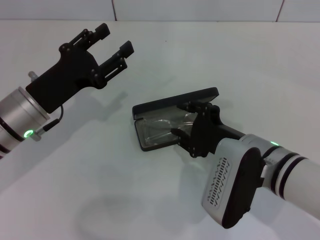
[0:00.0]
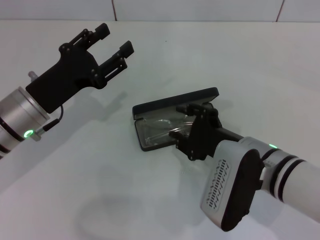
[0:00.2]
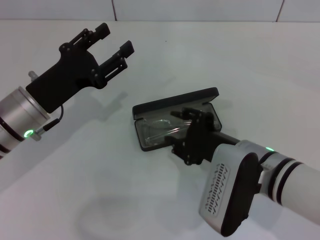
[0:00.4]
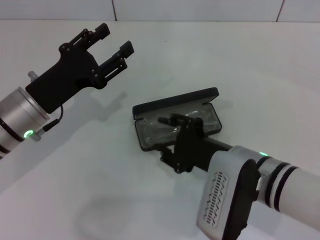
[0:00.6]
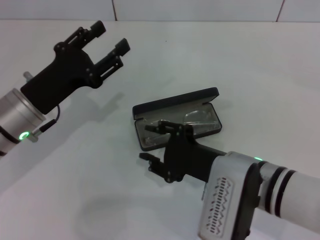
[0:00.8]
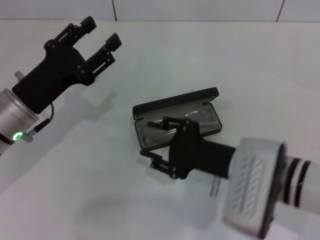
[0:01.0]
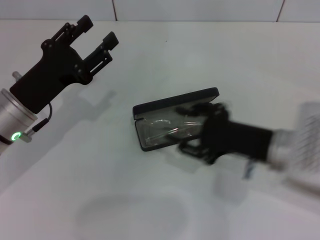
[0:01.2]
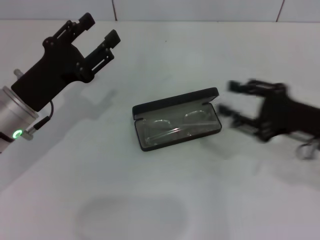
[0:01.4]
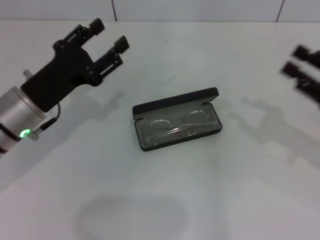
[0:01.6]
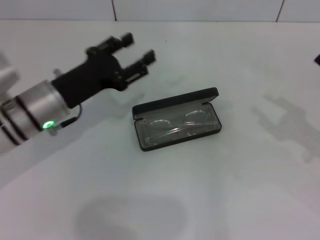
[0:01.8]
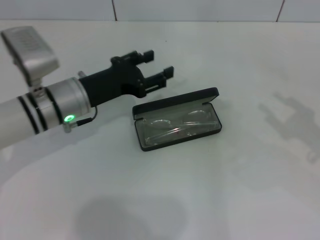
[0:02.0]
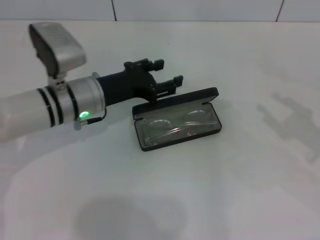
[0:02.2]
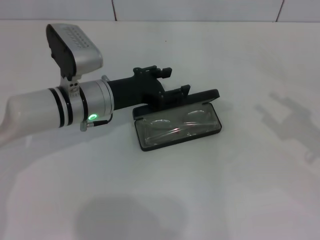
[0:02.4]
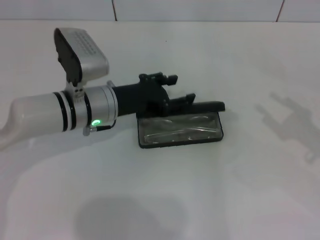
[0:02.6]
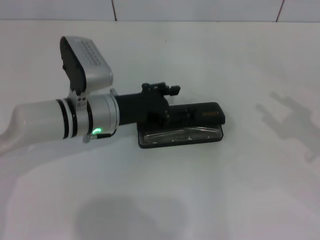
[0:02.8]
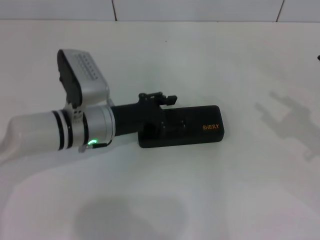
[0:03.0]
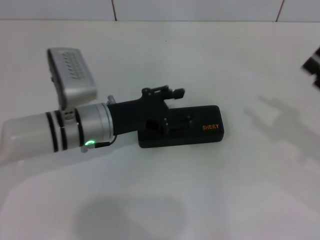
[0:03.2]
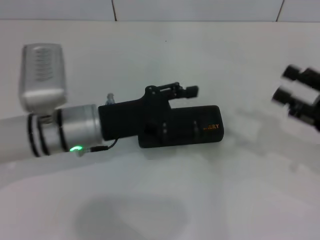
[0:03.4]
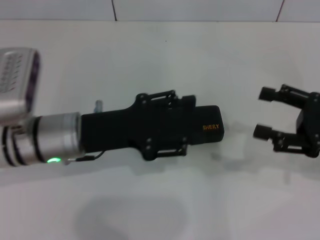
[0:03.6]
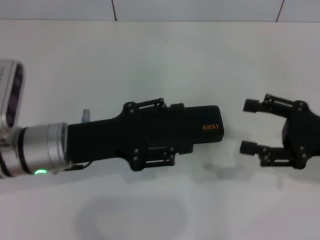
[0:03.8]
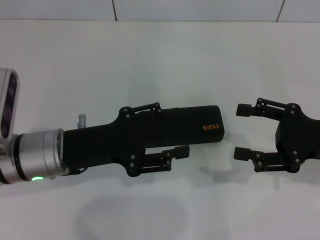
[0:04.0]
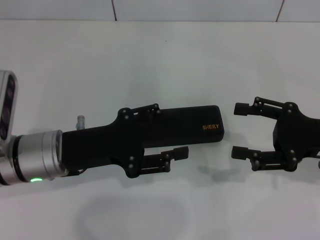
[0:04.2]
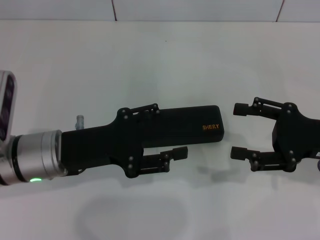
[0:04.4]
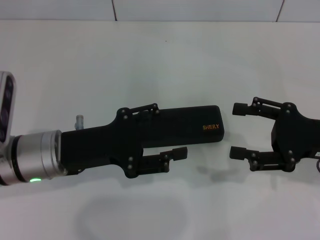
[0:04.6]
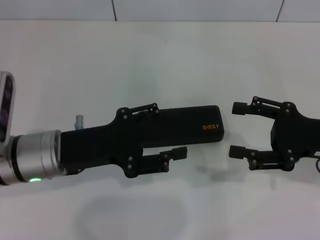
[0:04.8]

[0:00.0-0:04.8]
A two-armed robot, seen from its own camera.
Step, 0:01.0 to 0:03.0: Close the glasses case with your left hand.
0:00.0 to 0:01.6: The right gripper moves to the right, approximately 20 cm.
0:01.6 to 0:03.2: The left gripper is displaced to the right by roughly 10 cm.
0:03.2 to 0:04.8: The left gripper heads backward, covering approximately 5 cm. Meanwhile the right gripper is displaced to the left by roughly 5 cm, and opens.

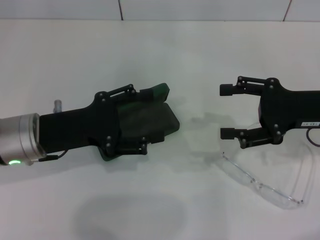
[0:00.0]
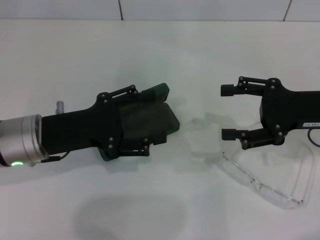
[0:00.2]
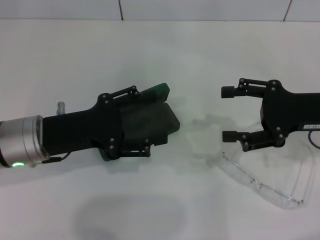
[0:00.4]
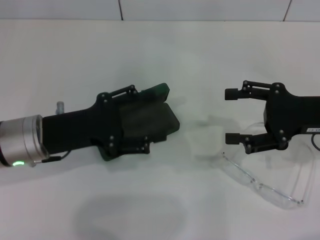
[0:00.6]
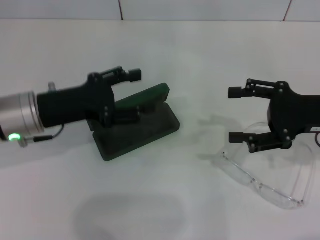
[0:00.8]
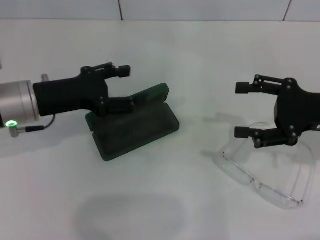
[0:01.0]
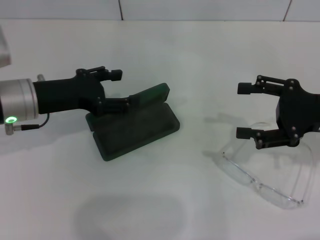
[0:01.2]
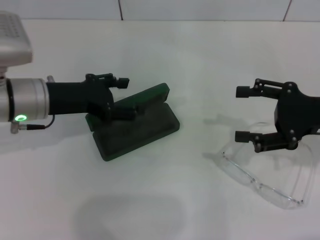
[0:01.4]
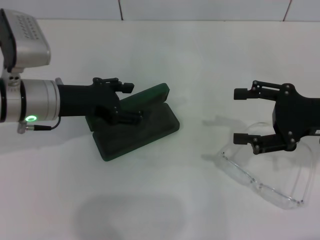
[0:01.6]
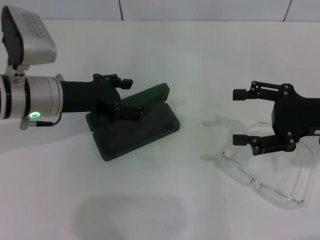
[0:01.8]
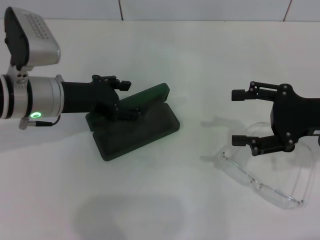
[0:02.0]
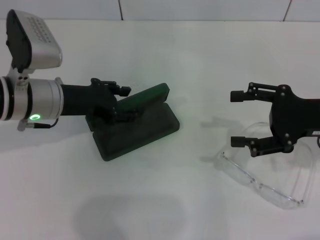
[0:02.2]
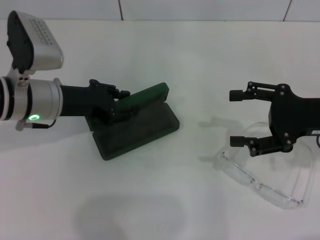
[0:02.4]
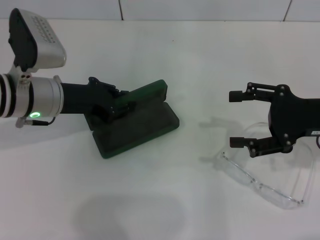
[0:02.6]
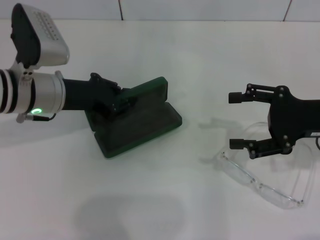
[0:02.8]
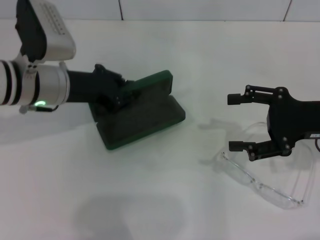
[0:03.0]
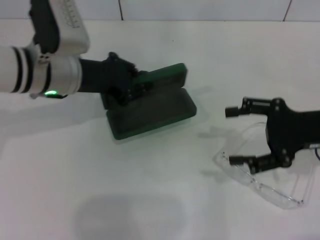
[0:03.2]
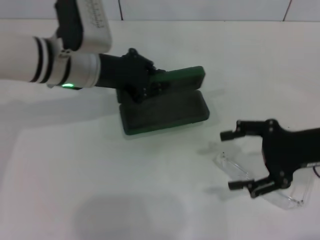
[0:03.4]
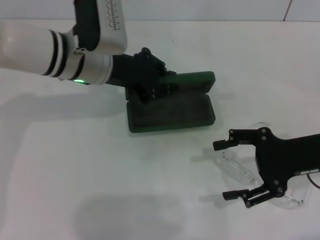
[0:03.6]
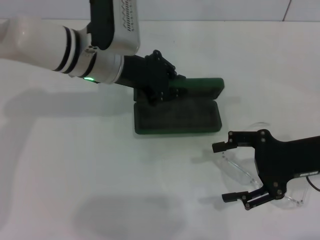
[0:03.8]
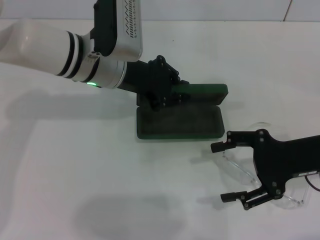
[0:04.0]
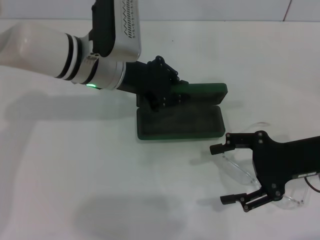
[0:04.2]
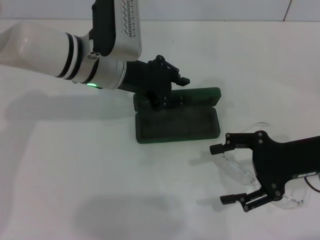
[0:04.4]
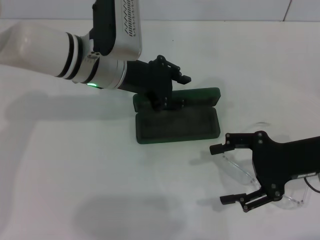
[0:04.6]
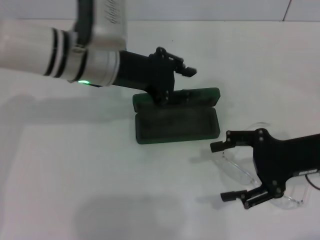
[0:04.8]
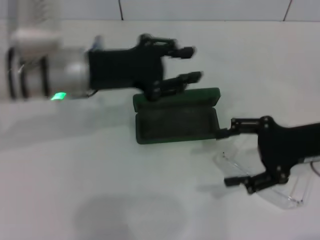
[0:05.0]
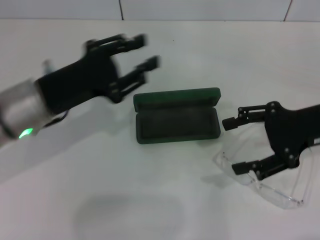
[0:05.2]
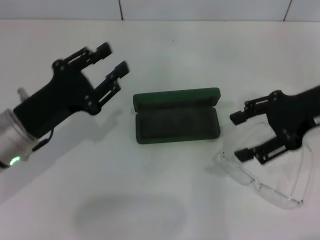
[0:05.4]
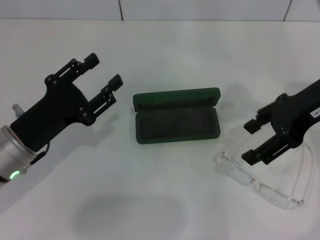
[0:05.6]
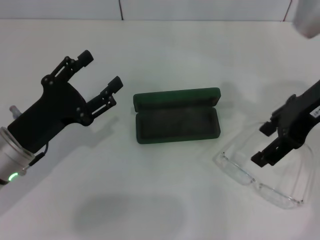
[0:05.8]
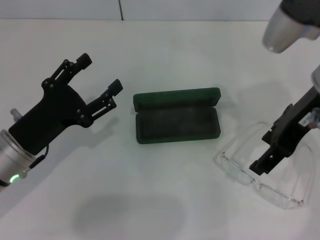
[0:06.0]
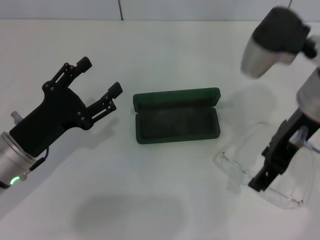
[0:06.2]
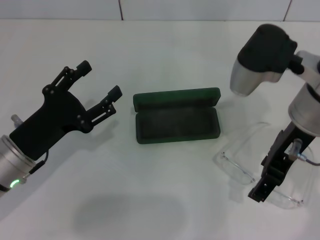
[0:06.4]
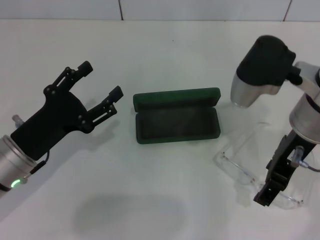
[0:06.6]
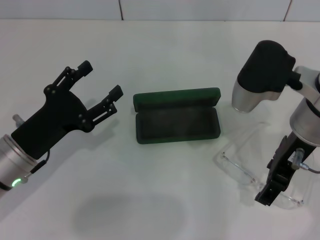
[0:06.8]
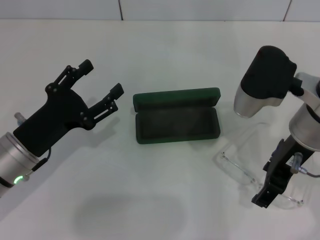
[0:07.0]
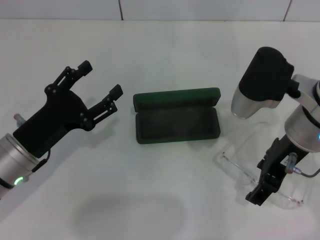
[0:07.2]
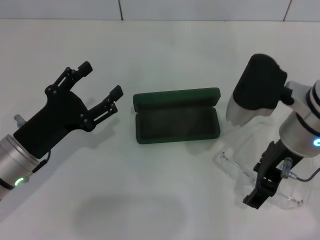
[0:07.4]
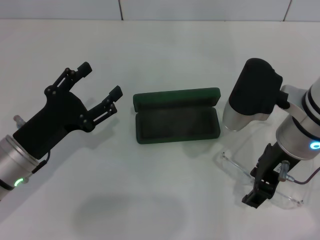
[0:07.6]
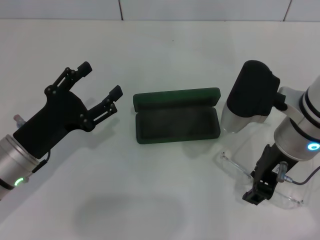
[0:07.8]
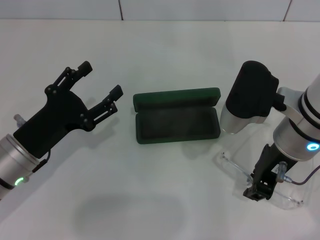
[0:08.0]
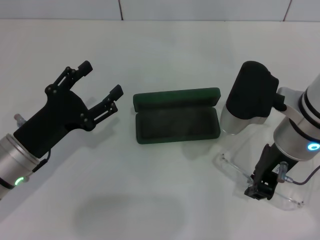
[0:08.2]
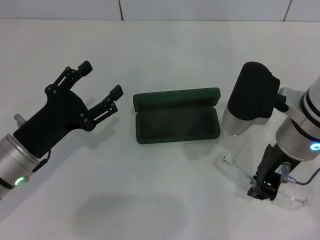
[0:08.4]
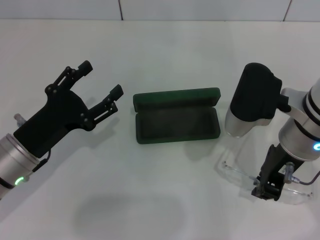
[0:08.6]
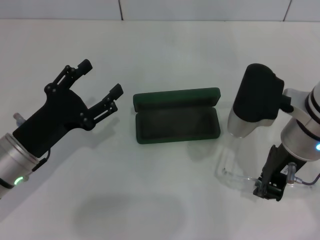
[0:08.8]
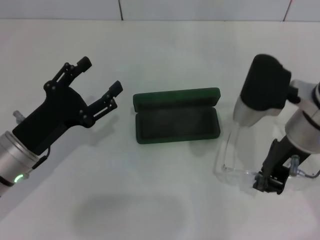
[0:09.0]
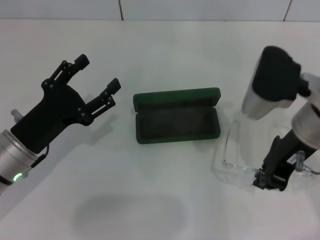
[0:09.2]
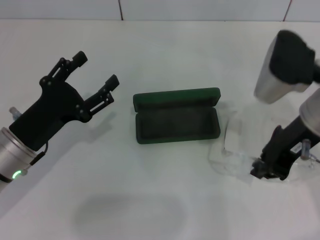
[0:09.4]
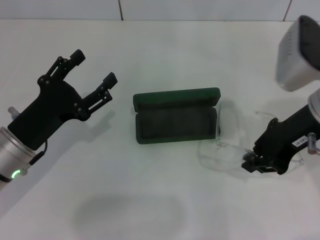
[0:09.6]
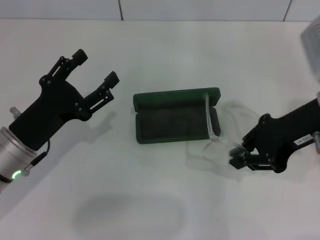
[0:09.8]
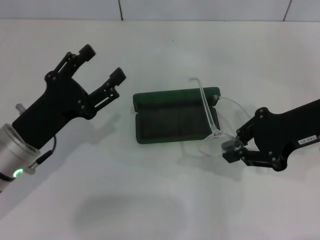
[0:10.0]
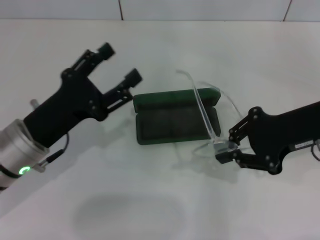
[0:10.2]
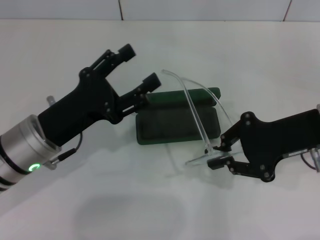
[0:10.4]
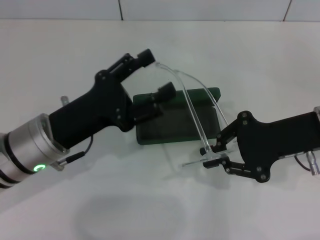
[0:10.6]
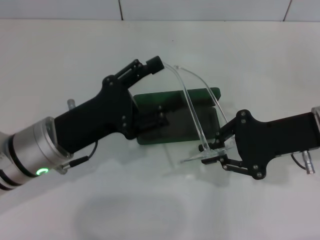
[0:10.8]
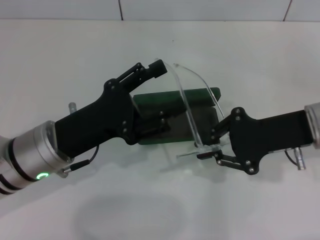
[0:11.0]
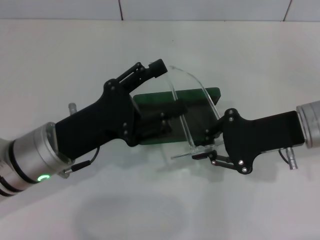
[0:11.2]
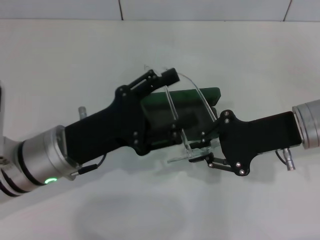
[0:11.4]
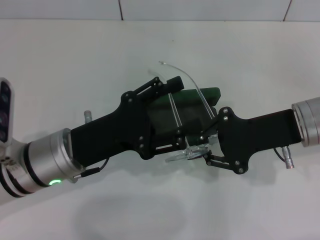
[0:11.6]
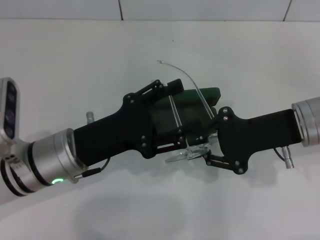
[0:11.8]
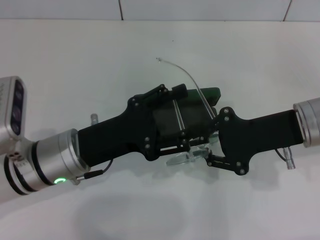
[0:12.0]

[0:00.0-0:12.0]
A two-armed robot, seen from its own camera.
Step, 0:00.0 to 0:02.4: Grab the glasses case with your left hand.
Step, 0:02.8 to 0:04.4: Place the glasses case in the center of the table with your left hand.
Step, 0:04.6 to 0:08.2: Grab the eyeglass frame with your right hand.
0:00.0 to 0:01.6: The left gripper travels forward by some 5 cm.
0:01.6 to 0:03.0: The left gripper closes.
0:03.0 to 0:04.4: The left gripper shifts approximately 10 cm to the right.
0:04.4 to 0:06.0: The right gripper travels upward and to the left by approximately 15 cm; the left gripper moves backward, to the left and downward, approximately 20 cm, and opens its fingers.
0:06.0 to 0:07.6: The right gripper is displaced downward by approximately 5 cm.
0:07.6 to 0:09.0: The right gripper closes its fingers.
0:09.0 to 0:10.4: The right gripper goes roughly 5 cm to the right.

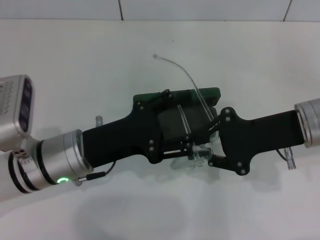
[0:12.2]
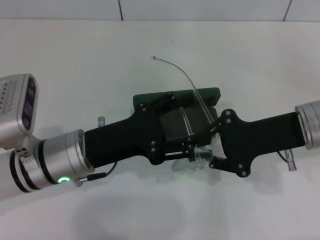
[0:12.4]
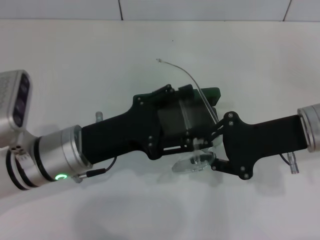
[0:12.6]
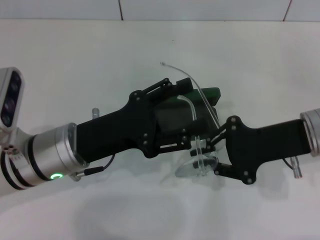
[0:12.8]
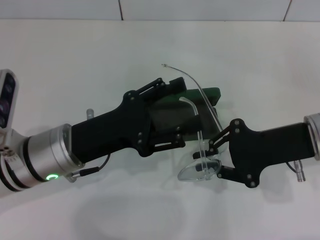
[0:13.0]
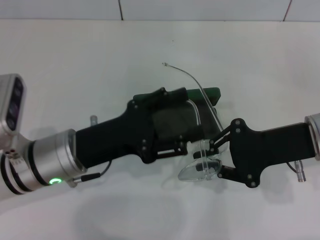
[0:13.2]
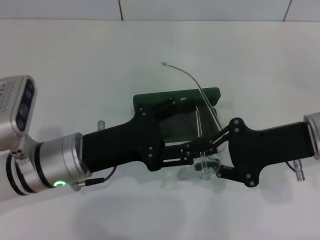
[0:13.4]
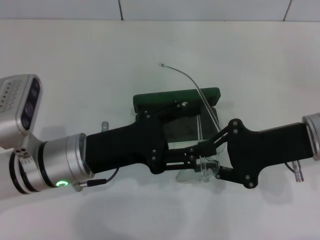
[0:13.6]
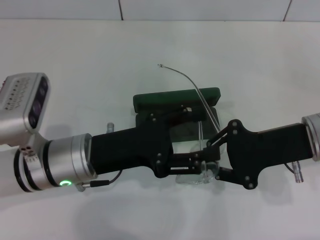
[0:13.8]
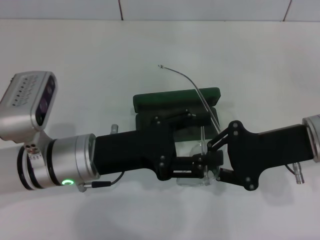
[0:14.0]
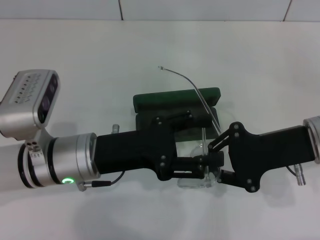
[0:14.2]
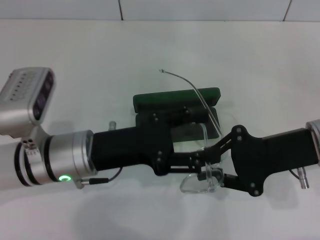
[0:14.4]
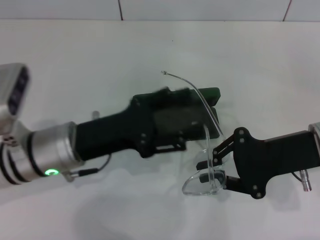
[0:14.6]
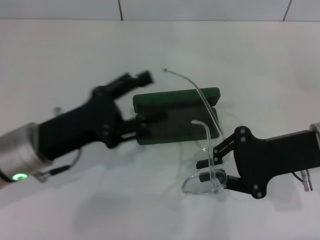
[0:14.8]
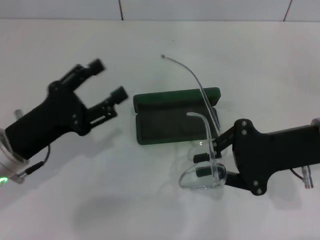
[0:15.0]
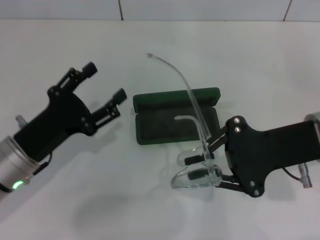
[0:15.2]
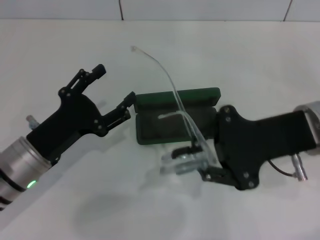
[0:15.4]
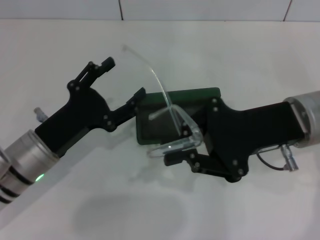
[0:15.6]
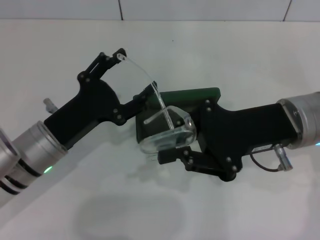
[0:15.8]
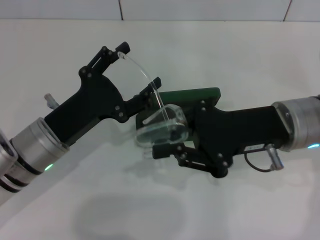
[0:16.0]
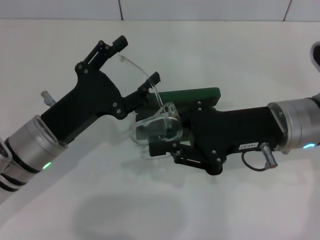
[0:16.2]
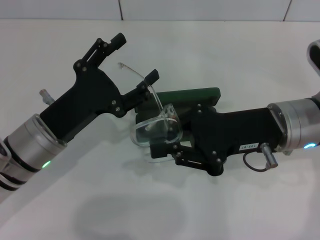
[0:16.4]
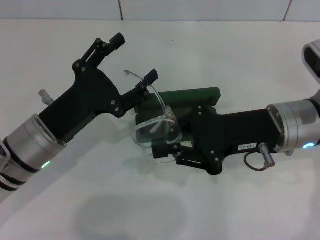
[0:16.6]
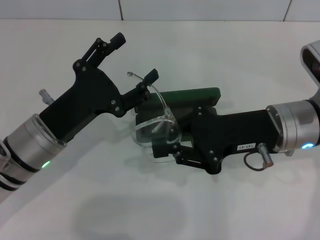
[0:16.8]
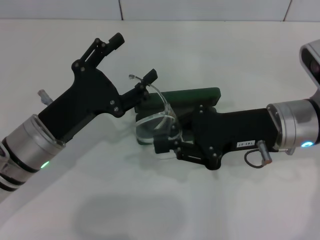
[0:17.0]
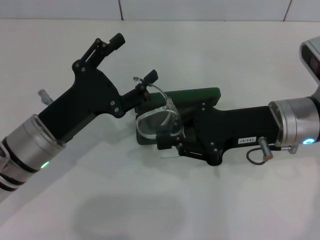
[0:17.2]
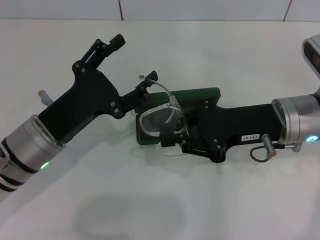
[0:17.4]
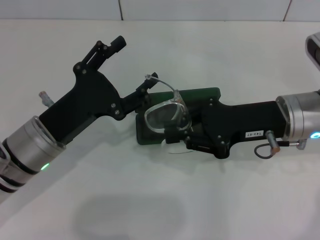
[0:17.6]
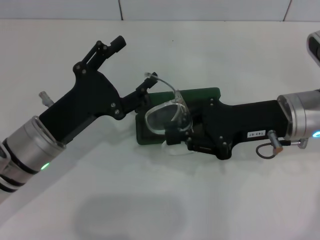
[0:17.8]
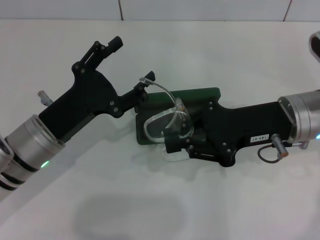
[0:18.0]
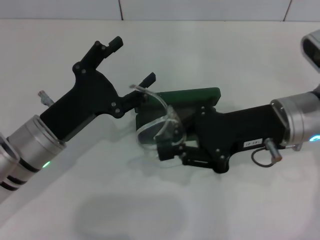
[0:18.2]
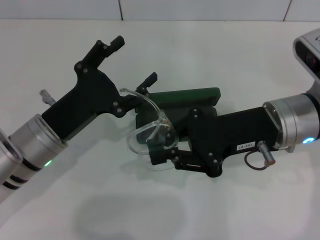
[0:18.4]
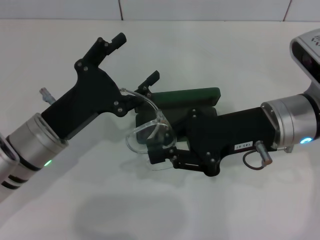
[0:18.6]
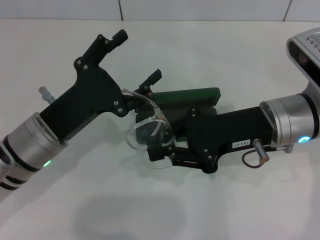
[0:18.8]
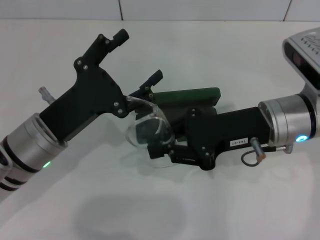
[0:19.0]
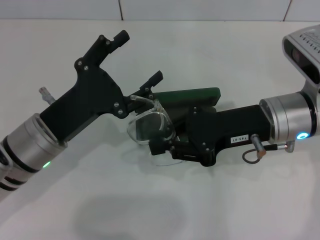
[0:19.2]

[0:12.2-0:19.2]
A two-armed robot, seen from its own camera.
0:12.2 to 0:13.6: The grippers move only a little.
0:13.6 to 0:15.0: The left gripper heads to the left, covering approximately 10 cm.
0:15.0 to 0:16.4: The right gripper is displaced to the left by roughly 5 cm. Meanwhile the left gripper shifts by roughly 5 cm.
0:16.4 to 0:19.2: The grippers stay close to where they were, moving slightly.
